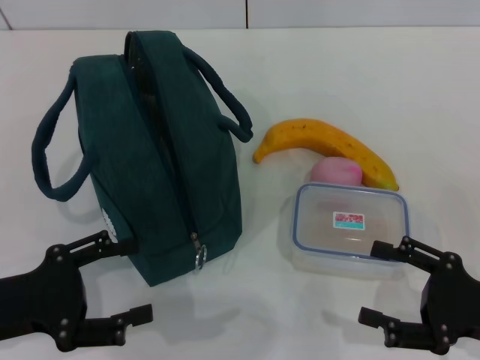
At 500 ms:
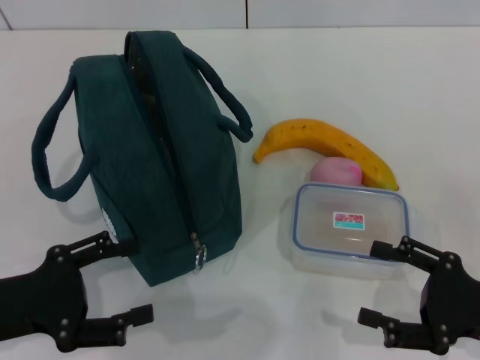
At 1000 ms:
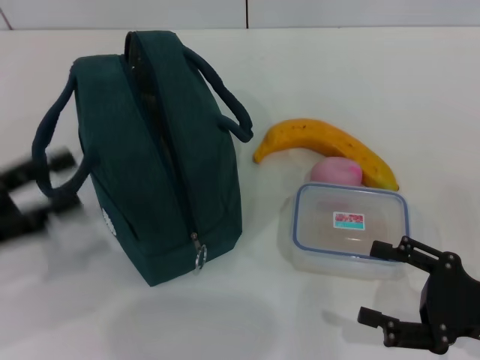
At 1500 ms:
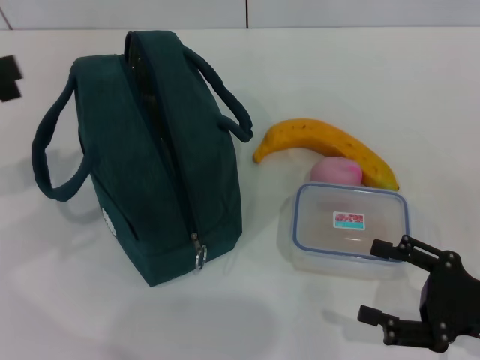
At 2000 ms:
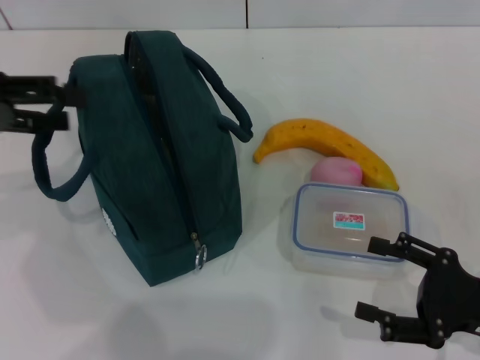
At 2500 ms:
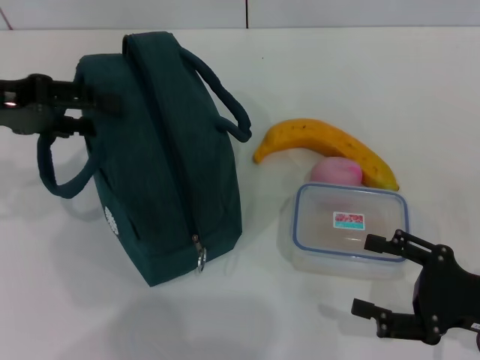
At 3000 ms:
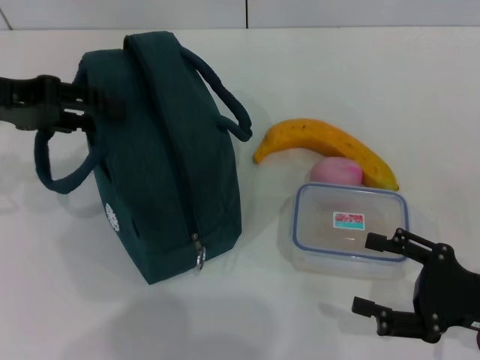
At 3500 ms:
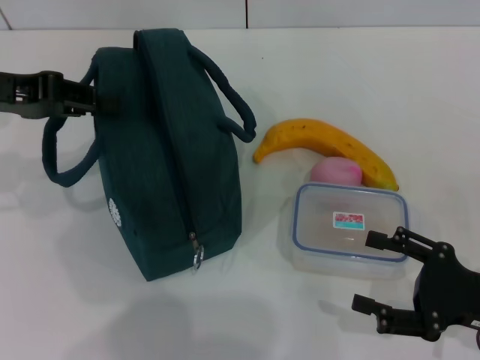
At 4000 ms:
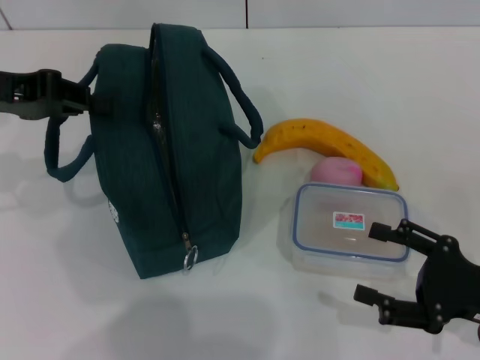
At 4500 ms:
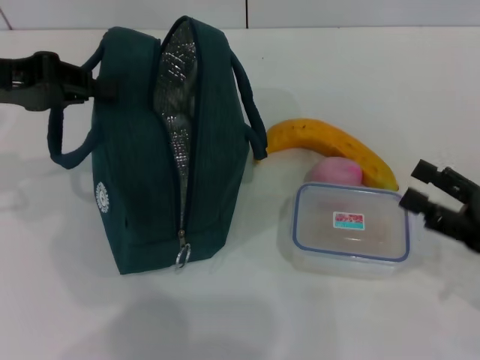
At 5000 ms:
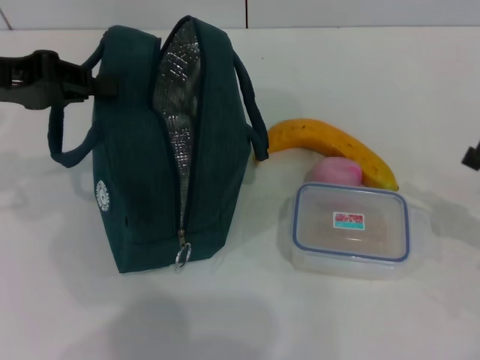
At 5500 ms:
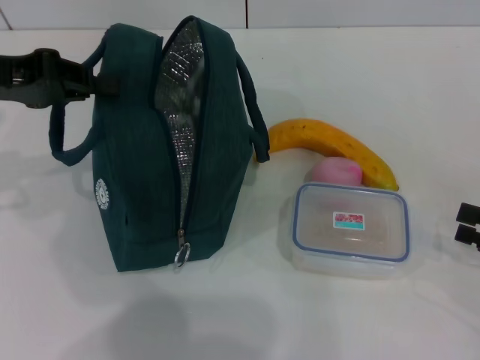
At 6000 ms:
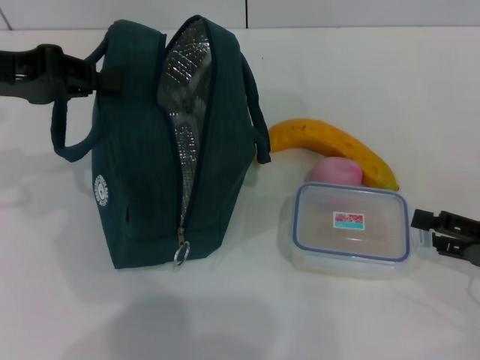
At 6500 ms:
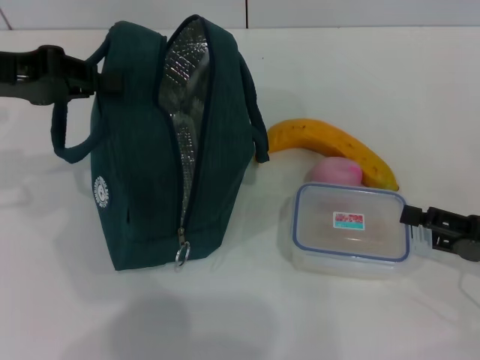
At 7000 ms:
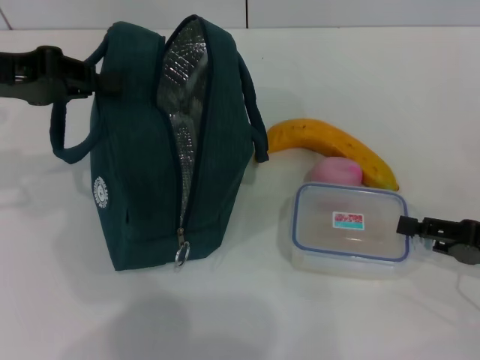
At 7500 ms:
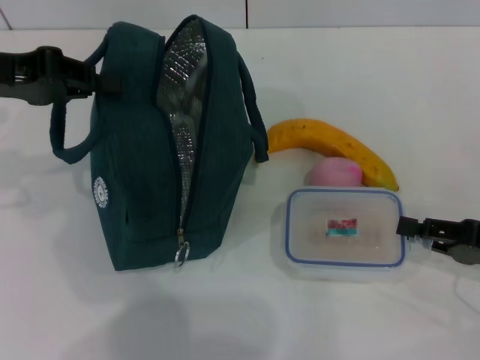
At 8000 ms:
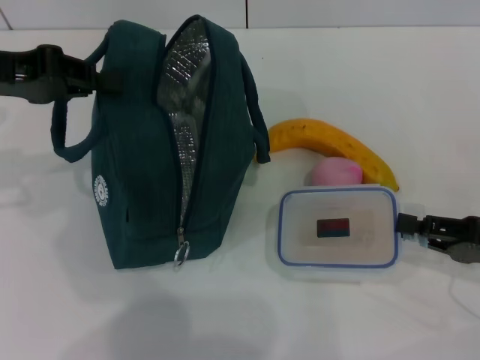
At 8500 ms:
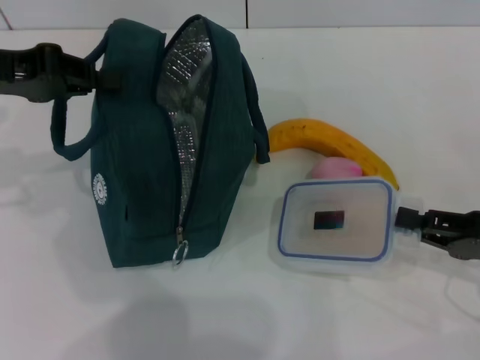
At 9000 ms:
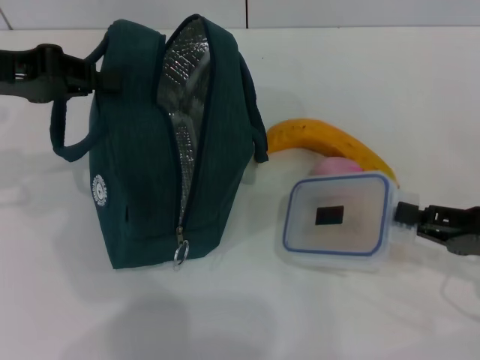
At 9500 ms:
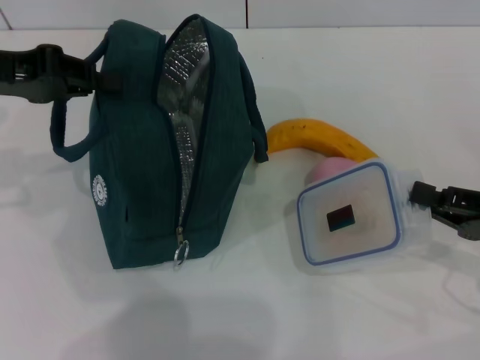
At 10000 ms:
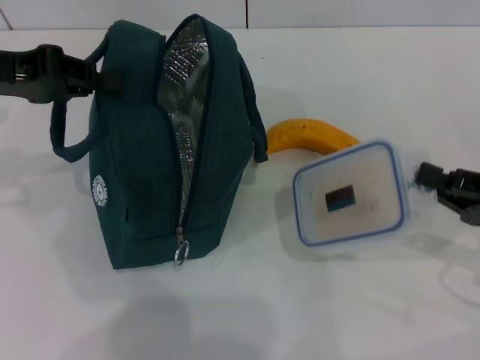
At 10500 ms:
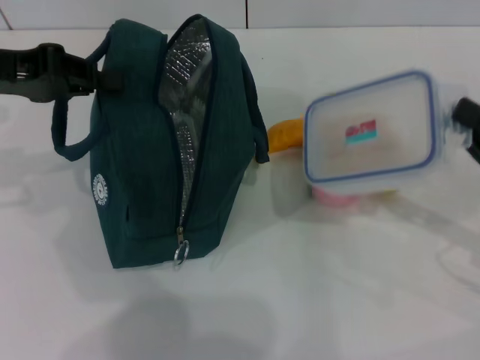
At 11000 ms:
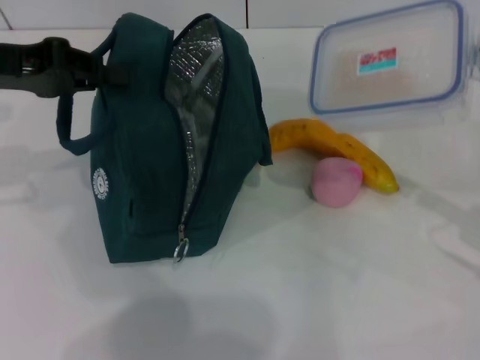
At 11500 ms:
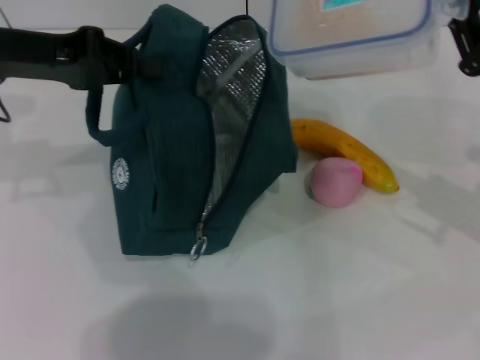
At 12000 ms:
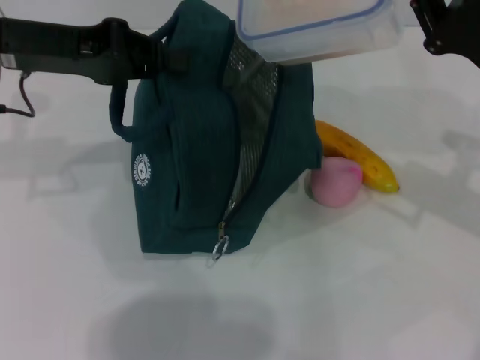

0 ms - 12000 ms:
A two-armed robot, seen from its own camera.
Step, 0 ms - 4000 ms: Hold the lunch bag with your left hand.
Step, 4500 ms - 8500 ms: Pick up the lunch box with your right hand.
0 ms - 2000 ms: The left gripper heads upward and forward, covering approximately 20 cm.
2000 ms - 4000 ms: The left gripper closes up.
4000 ms - 6000 ms: The right gripper shifts some 5 cm to the right.
6000 ms - 8000 ms: The right gripper closes up.
8000 ms - 10000 ms: The grippers move only a little.
10000 ms - 12000 ms: The left gripper moves to the right, approximately 5 cm. The right gripper moves forward, upward and to the left, roughly 10 cm.

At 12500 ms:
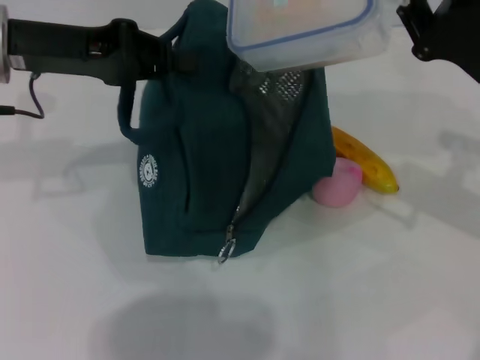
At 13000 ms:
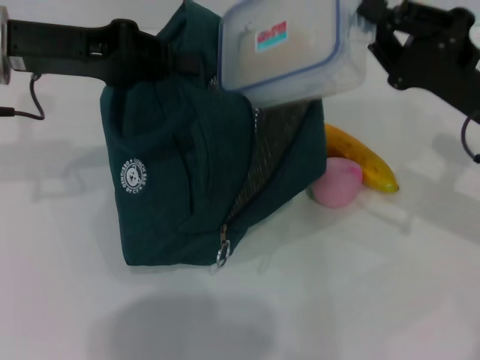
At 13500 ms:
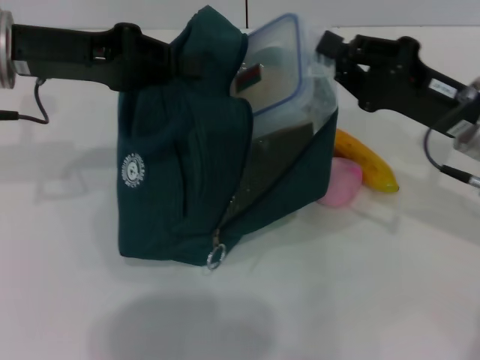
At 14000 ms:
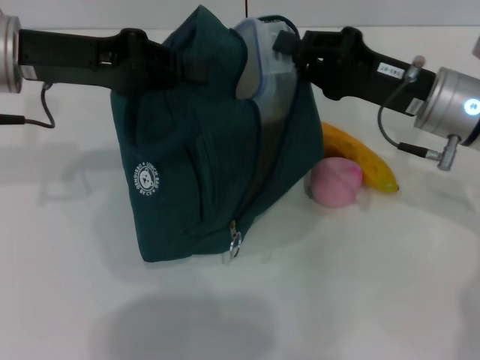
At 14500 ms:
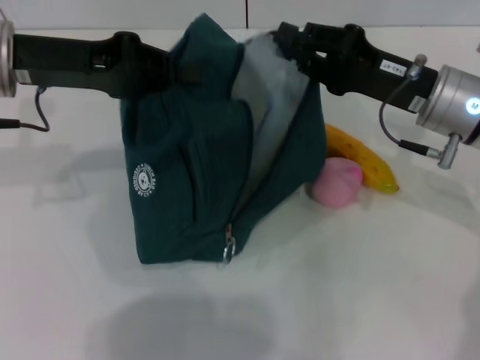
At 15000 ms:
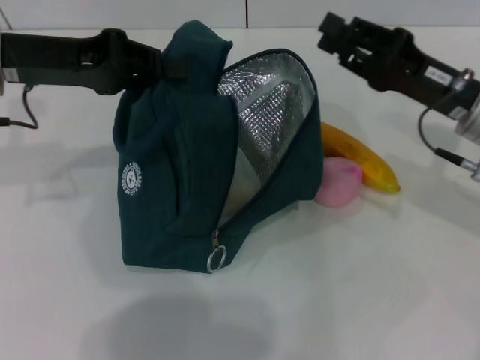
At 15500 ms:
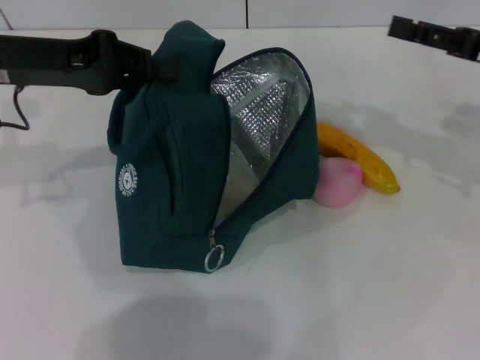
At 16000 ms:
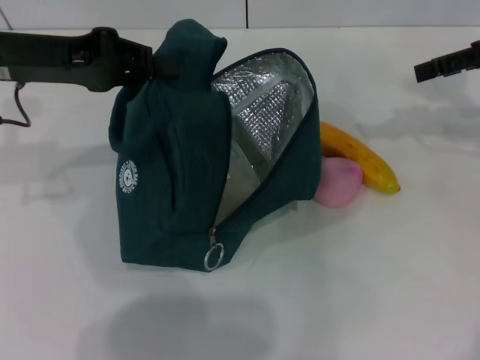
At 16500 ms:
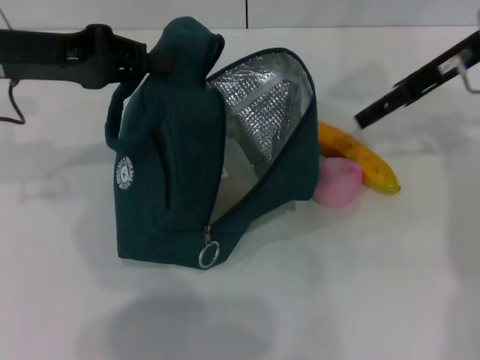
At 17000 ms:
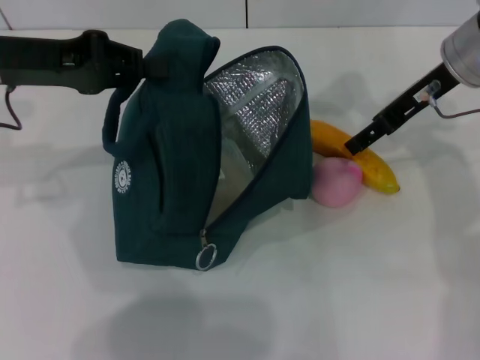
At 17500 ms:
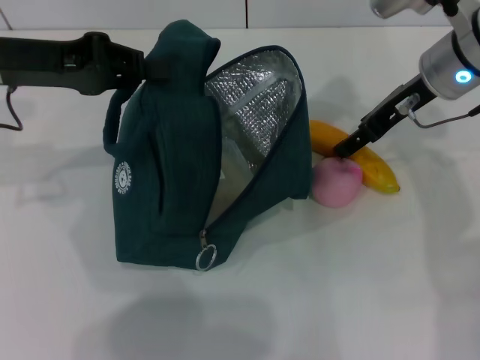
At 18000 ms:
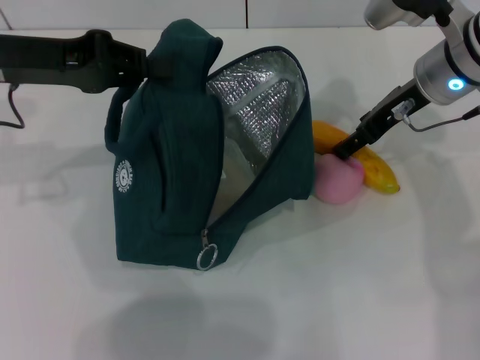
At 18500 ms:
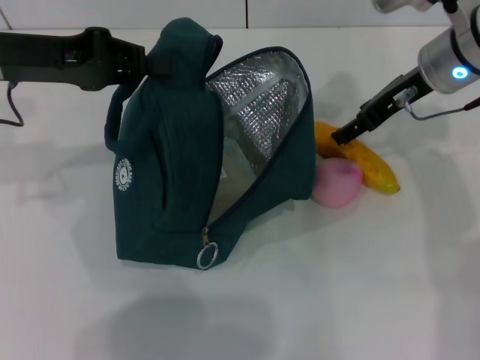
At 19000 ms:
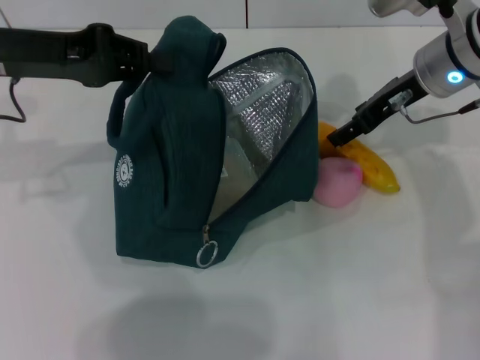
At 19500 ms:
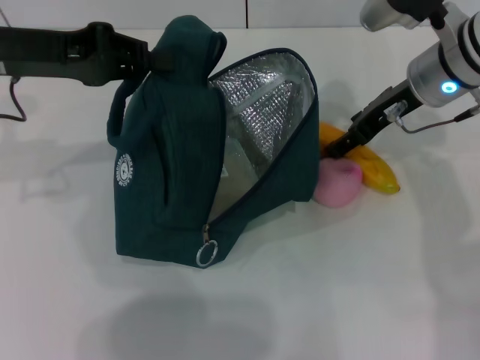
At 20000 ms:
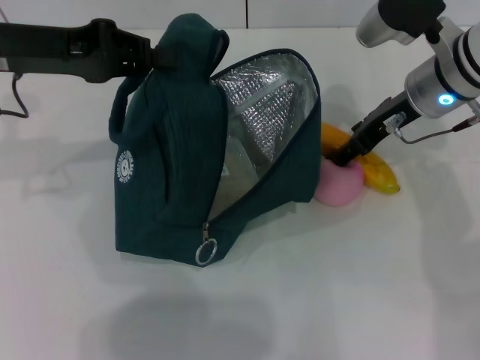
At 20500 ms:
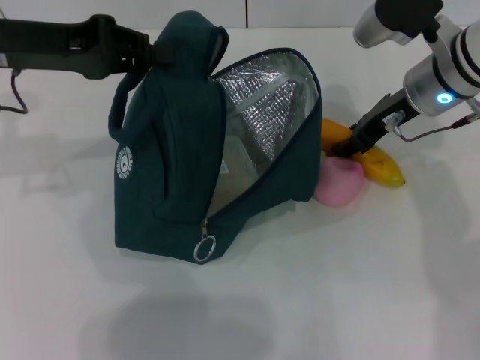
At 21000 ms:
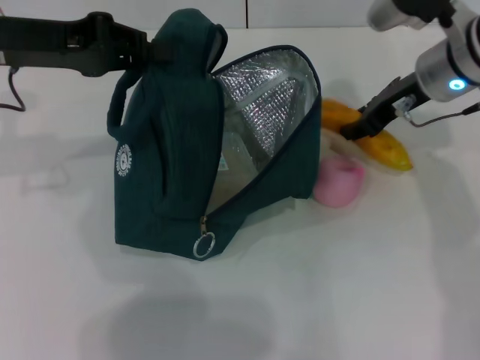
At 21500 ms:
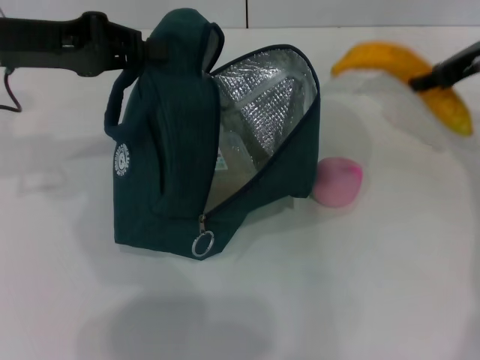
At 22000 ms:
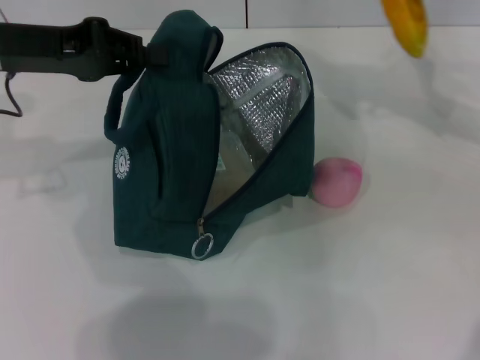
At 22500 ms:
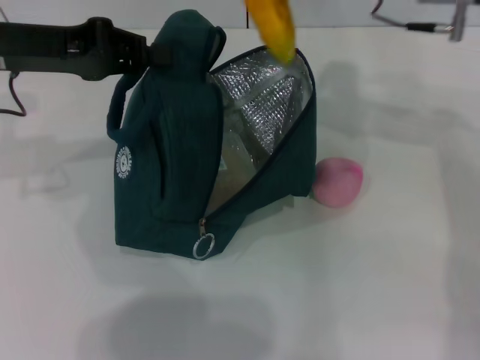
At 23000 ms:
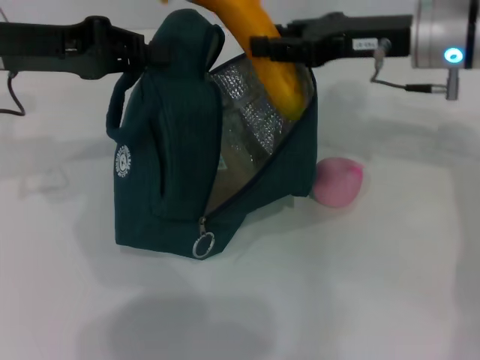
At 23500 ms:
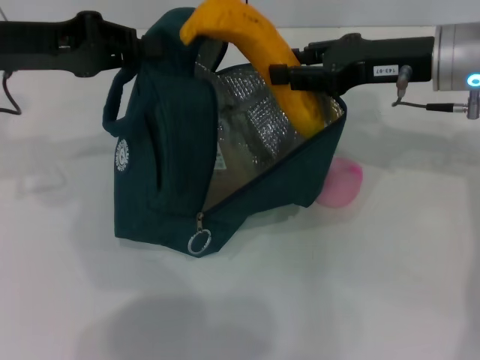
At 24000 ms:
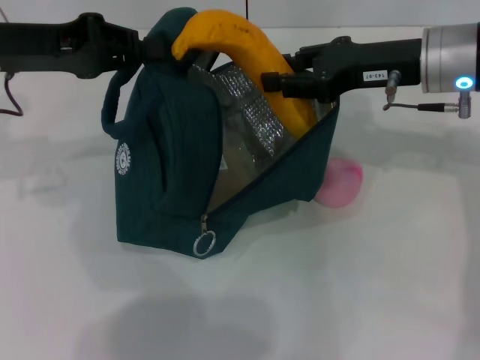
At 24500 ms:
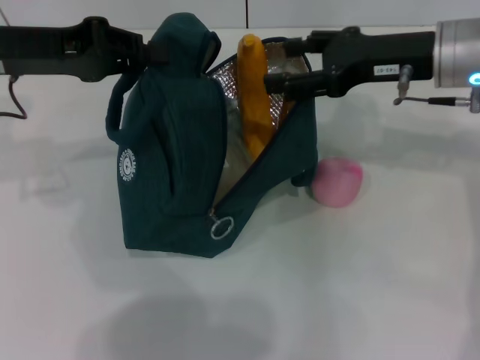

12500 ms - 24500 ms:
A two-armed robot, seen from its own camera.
Step, 12500 ms - 14500 ms: Place the lunch box into the lunch bag with your right hand.
Step, 15000 ms - 20000 ms: Take the banana with your right hand.
Step, 21000 ms - 24000 ms: Put the banana into the lunch bag with your right hand.
12500 ms - 14500 ms: The right gripper heads to the left, covering about 5 cm.
14500 ms - 16500 ms: The right gripper travels upward and forward by about 10 cm, reaches roughly 10 cm to the right, then returns, and opens up.
16500 ms - 18500 ms: The right gripper shifts by about 5 cm.
18500 ms - 20500 ms: There are only small adjustments of the grippers.
20500 ms - 22500 ms: The right gripper moves upward, about 10 cm.
22500 ms - 24500 ms: The right gripper moves downward, some 5 cm, and opens up.

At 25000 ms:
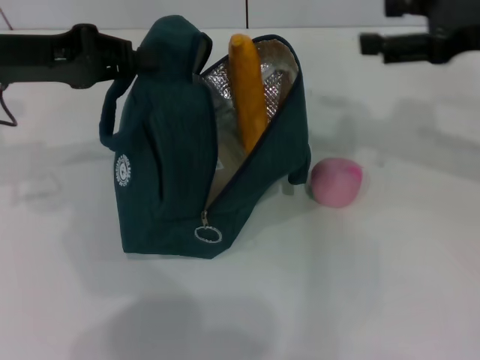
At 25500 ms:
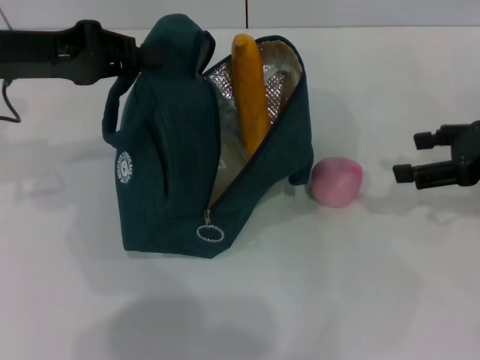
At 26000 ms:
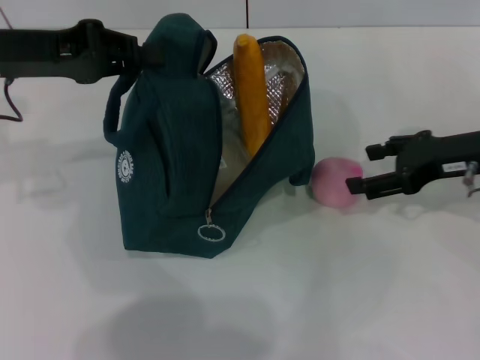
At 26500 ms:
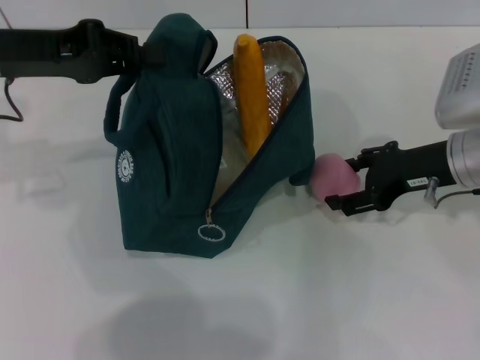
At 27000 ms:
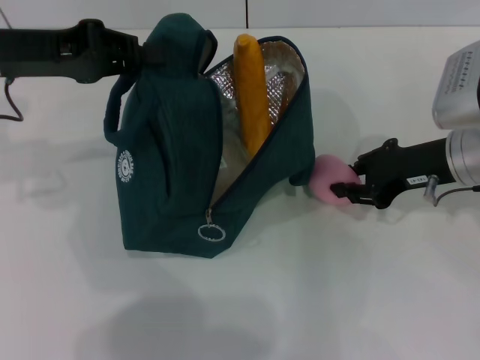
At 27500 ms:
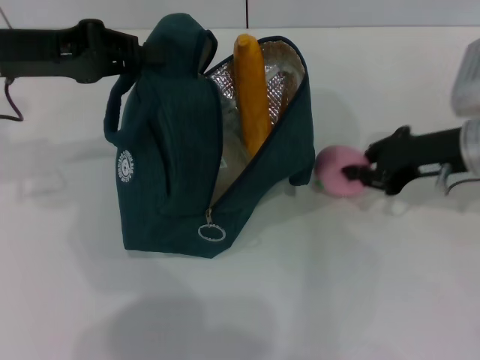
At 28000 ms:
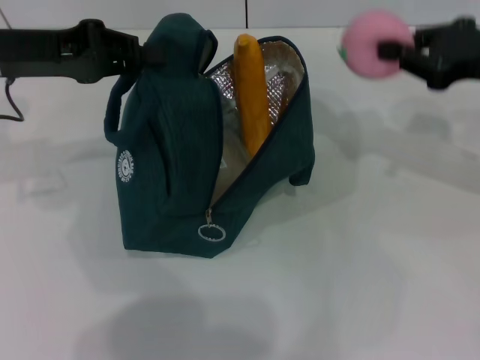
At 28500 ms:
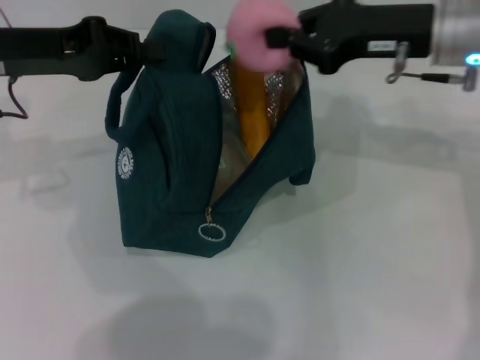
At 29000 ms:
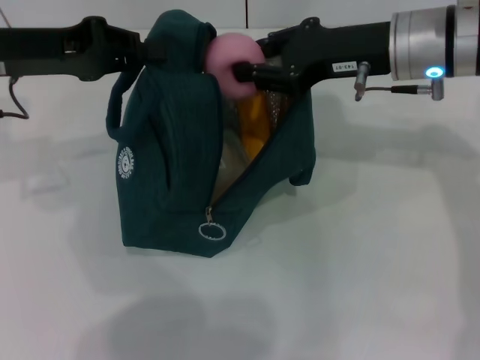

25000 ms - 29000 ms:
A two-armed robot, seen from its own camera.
Step, 25000 ms - 27000 ms: Grab the peach with your right hand.
25000 ms - 27000 ms: The right gripper travels downward by approximately 10 cm, and closes.
27000 ms - 29000 ms: The right gripper shifts some 10 cm upward and to the left, and closes its fingers.
